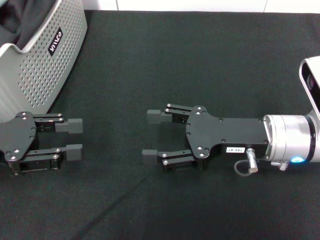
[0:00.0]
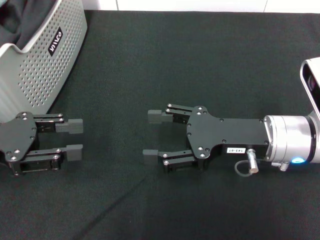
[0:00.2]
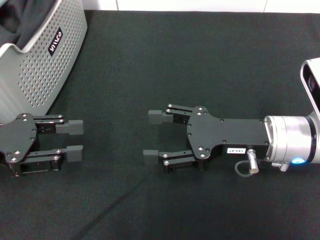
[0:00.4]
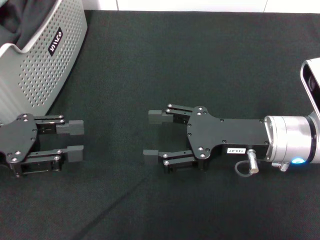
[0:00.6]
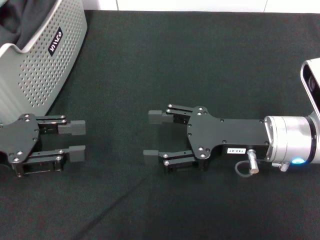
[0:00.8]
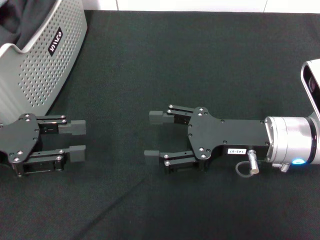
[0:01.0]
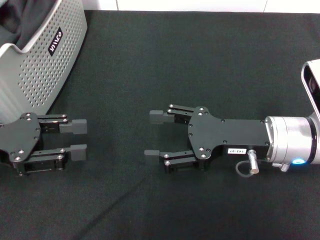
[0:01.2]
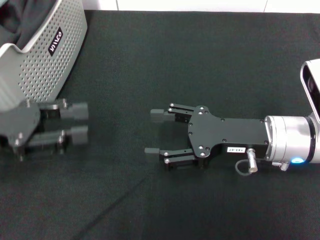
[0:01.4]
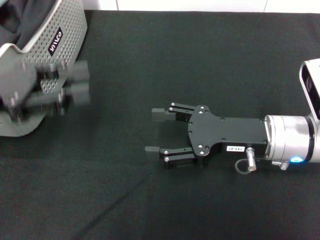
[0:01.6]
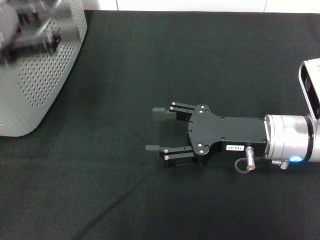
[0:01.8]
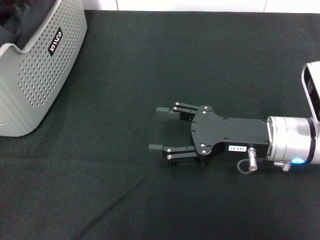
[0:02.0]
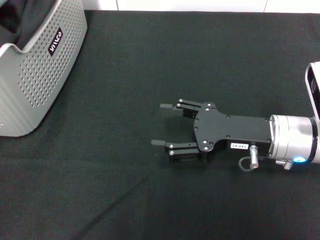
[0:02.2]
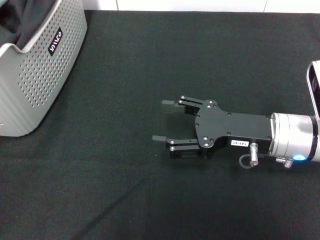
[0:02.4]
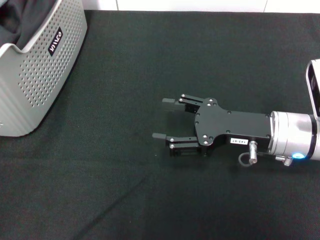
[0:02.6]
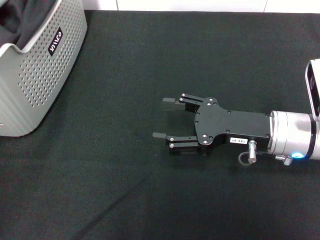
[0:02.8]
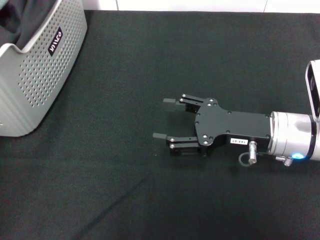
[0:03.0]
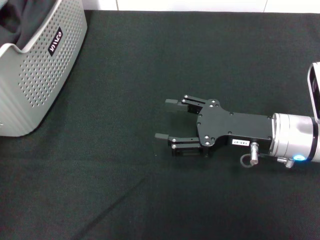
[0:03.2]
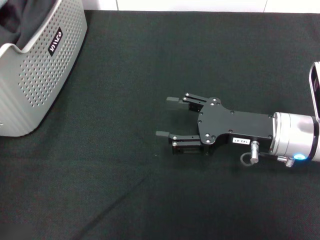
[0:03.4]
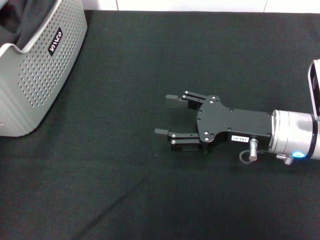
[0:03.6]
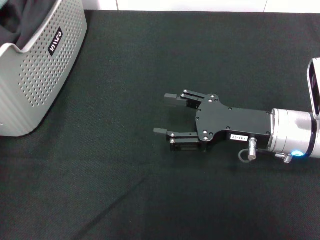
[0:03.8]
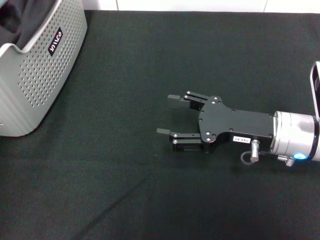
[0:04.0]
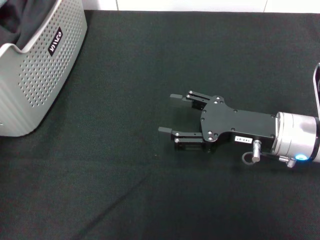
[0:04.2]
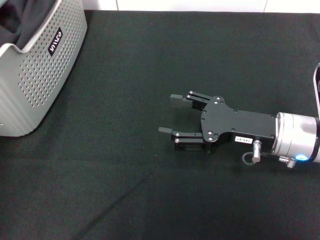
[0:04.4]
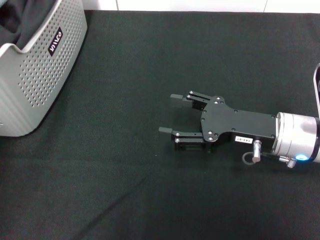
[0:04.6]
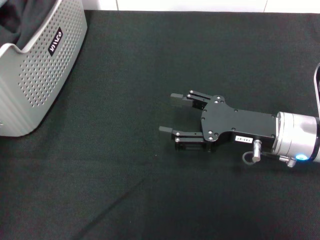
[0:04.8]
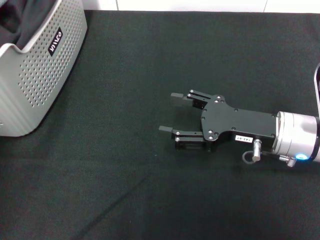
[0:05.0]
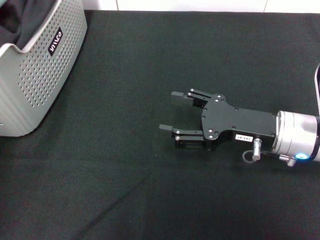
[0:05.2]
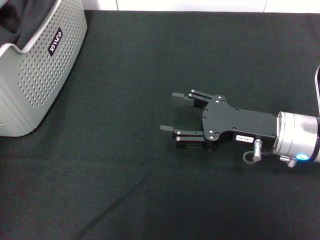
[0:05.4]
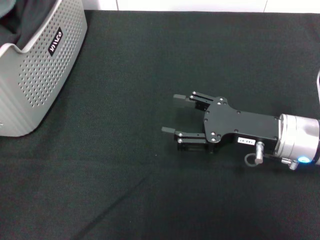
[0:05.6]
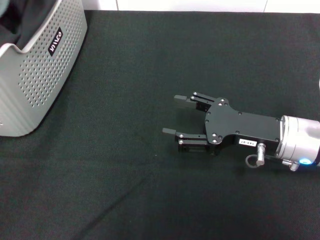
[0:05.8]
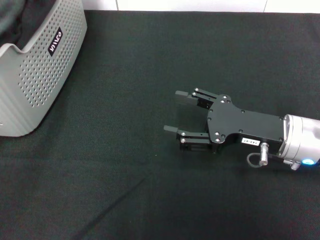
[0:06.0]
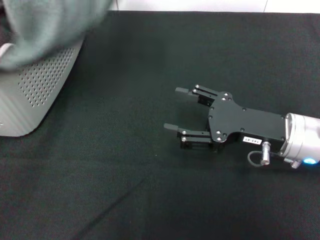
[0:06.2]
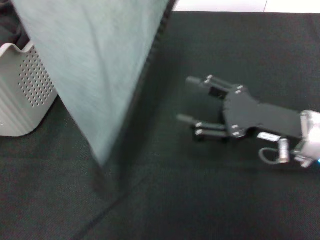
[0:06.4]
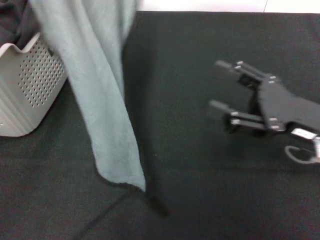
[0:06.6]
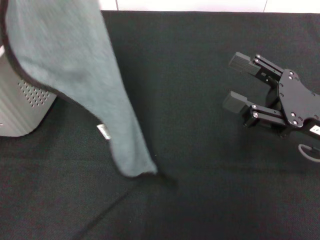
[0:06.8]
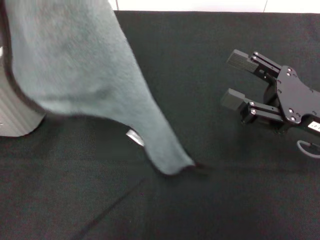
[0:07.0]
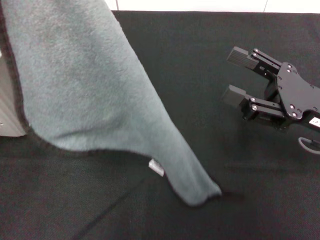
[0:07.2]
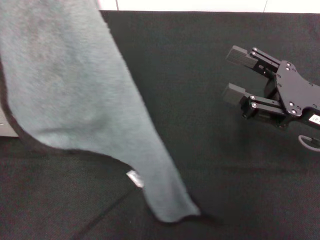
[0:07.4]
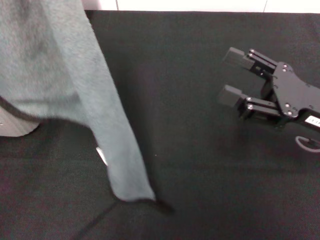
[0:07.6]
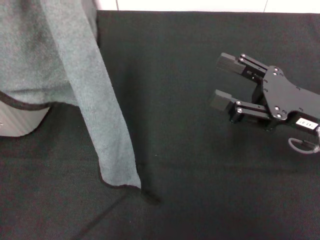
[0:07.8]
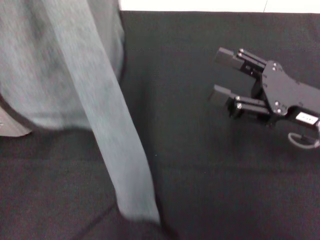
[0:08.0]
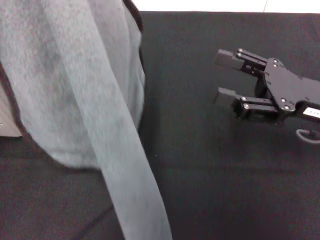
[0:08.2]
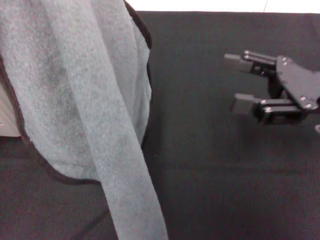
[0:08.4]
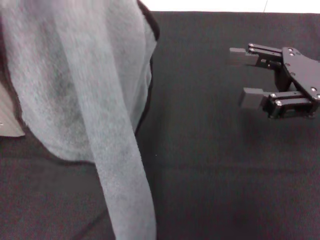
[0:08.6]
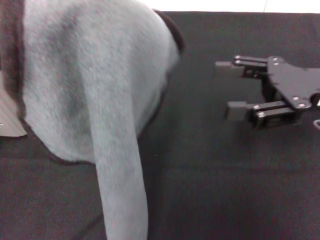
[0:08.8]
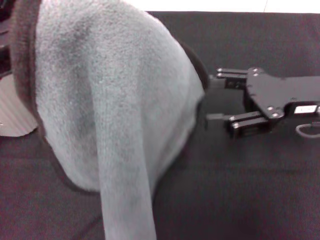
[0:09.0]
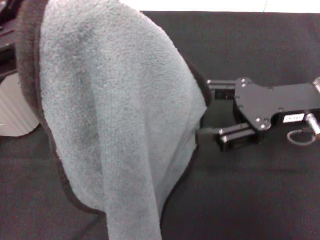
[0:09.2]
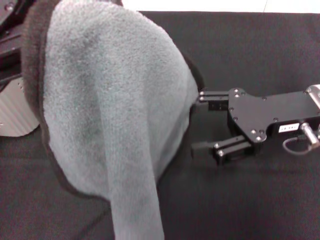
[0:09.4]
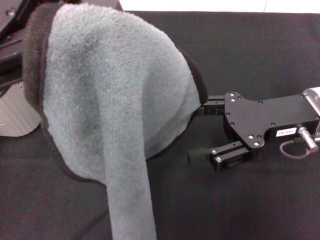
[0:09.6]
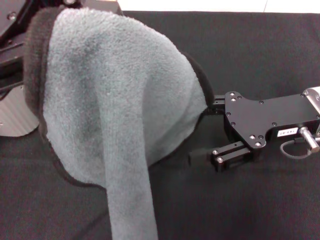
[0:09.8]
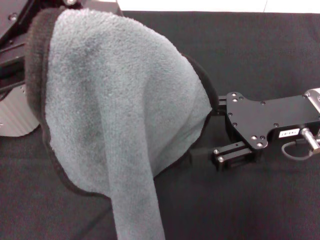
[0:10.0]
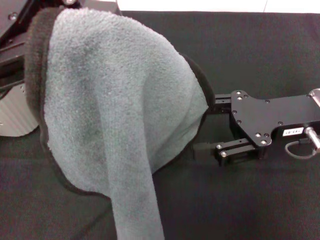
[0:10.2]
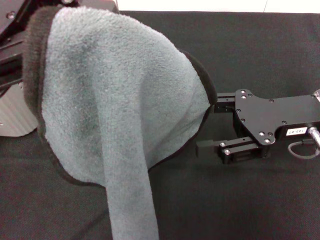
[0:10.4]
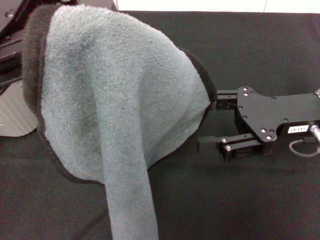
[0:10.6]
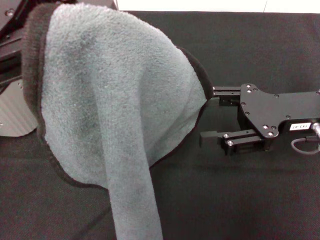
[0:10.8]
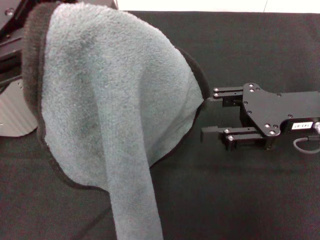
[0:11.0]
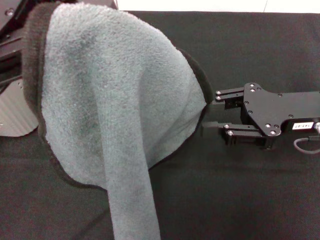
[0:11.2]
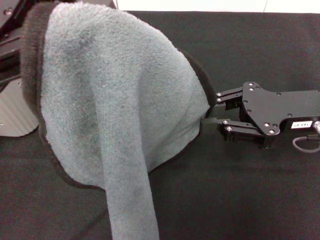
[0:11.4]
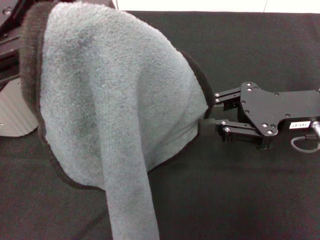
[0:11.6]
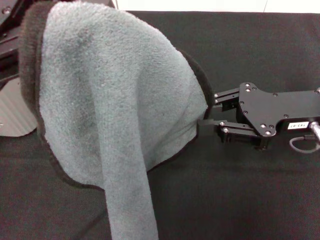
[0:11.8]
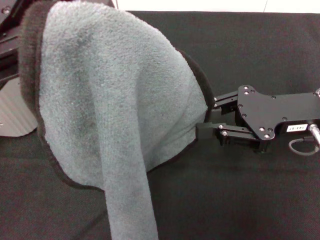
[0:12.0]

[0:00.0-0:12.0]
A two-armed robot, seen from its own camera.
Task of the whole recording: pick up the towel from the storage box and lay it flat on the black tablecloth.
Step, 0:00.0 to 0:05.2: Pick up a towel with the left gripper.
0:00.0 to 0:01.6: The left gripper shifts by about 5 cm.
0:01.6 to 0:03.0: The left gripper goes roughly 10 cm upward.
0:03.0 to 0:04.4: The grippers stay close to where they were, moving slightly.
0:04.4 to 0:06.0: The left gripper shifts roughly 10 cm upward and backward, and closes up.
0:06.0 to 0:07.6: The left gripper shifts roughly 5 cm downward; the right gripper goes approximately 5 cm to the right.
0:07.6 to 0:09.0: The left gripper is displaced to the right by some 5 cm. The right gripper changes place by about 5 cm.
0:10.4 to 0:12.0: The right gripper closes up.

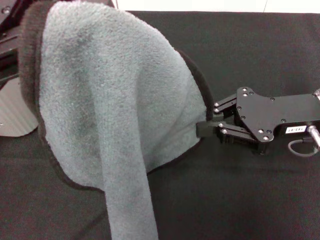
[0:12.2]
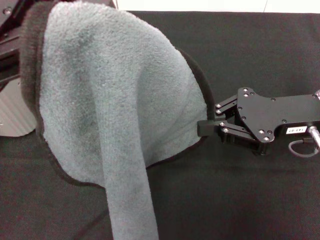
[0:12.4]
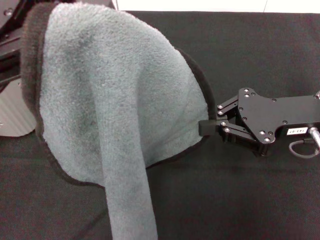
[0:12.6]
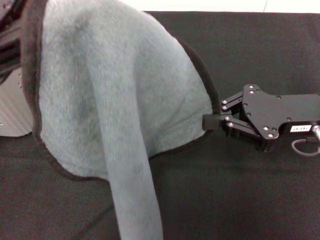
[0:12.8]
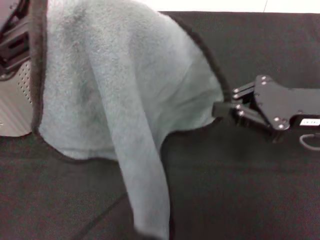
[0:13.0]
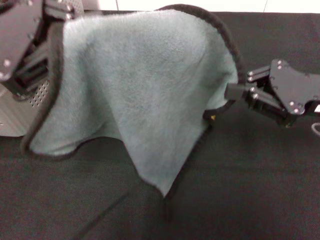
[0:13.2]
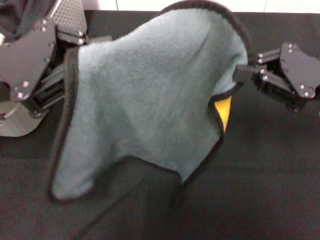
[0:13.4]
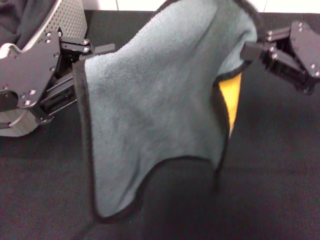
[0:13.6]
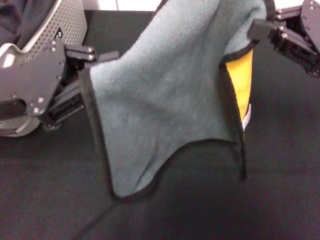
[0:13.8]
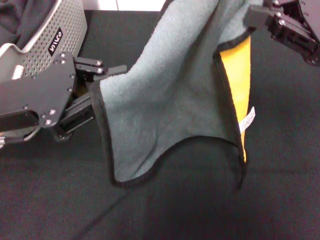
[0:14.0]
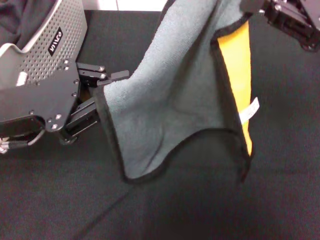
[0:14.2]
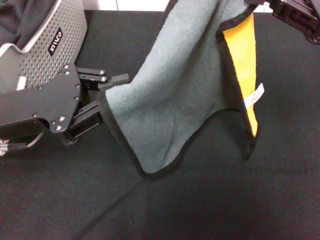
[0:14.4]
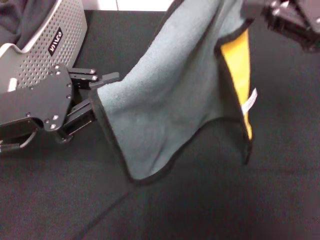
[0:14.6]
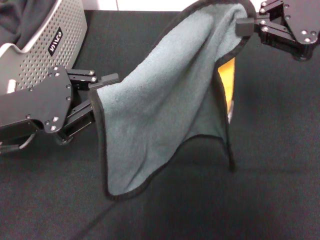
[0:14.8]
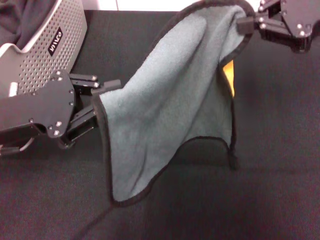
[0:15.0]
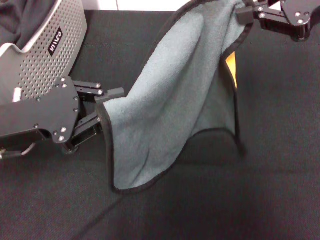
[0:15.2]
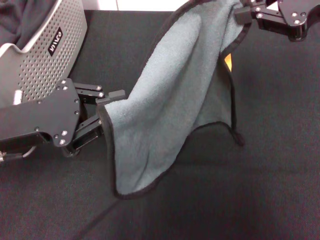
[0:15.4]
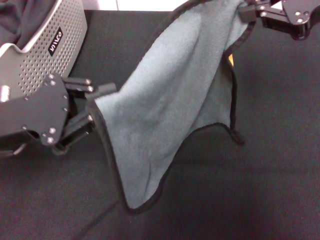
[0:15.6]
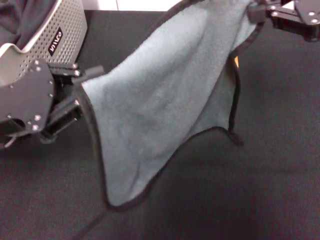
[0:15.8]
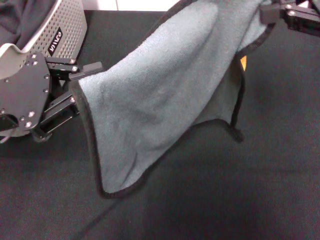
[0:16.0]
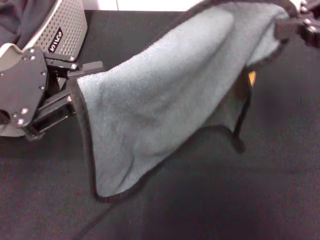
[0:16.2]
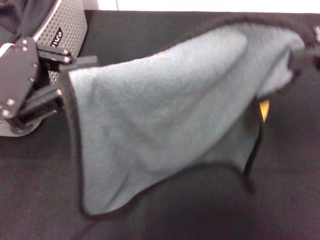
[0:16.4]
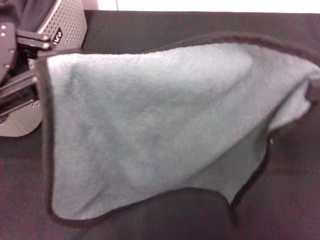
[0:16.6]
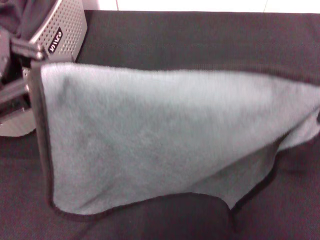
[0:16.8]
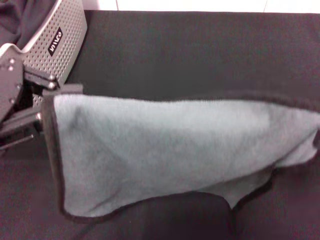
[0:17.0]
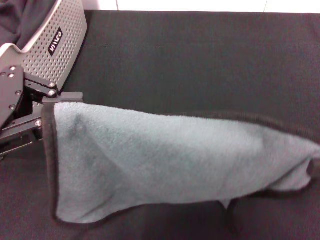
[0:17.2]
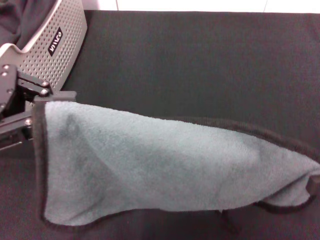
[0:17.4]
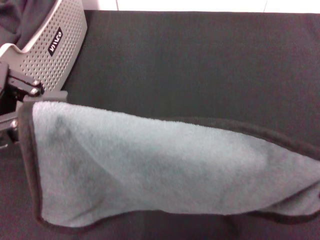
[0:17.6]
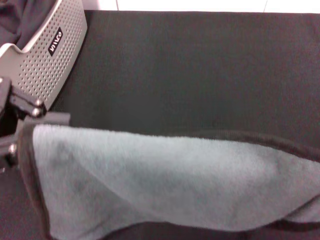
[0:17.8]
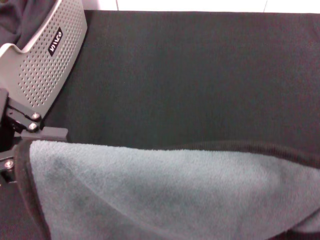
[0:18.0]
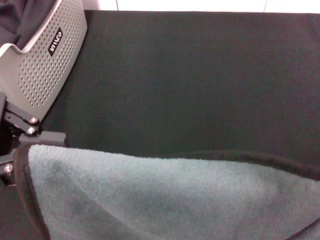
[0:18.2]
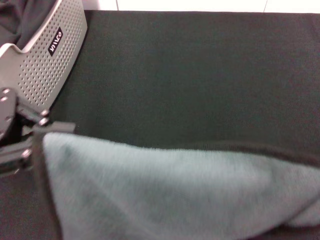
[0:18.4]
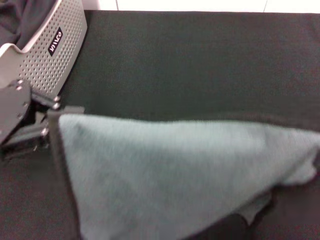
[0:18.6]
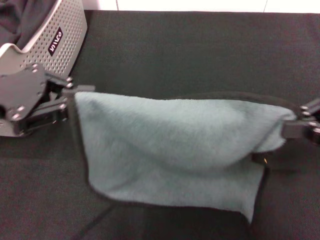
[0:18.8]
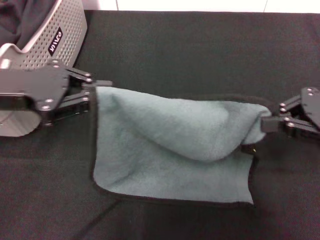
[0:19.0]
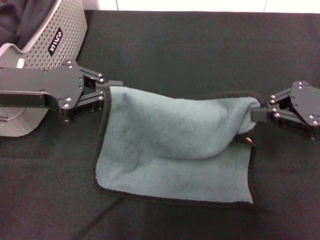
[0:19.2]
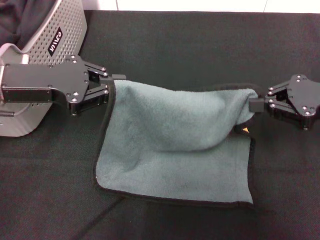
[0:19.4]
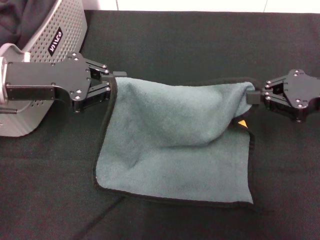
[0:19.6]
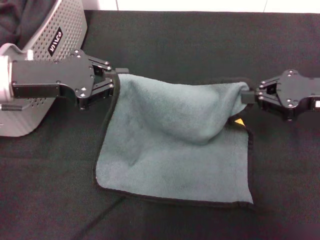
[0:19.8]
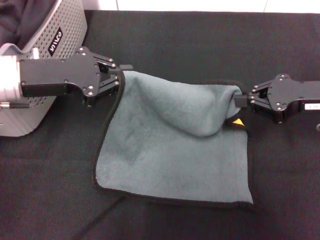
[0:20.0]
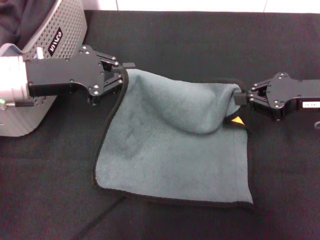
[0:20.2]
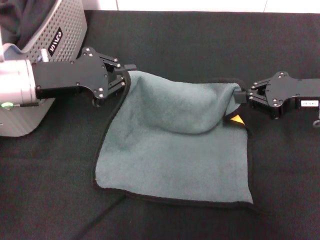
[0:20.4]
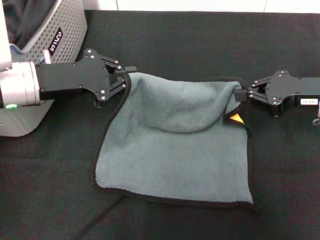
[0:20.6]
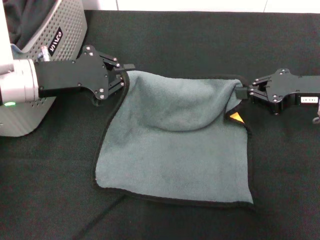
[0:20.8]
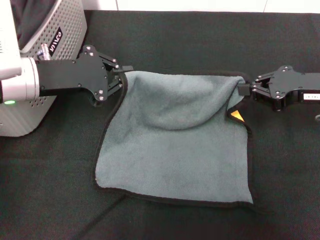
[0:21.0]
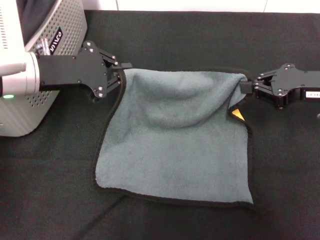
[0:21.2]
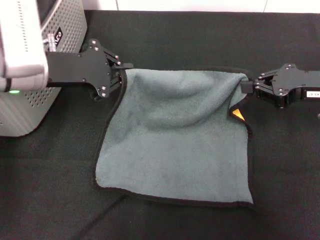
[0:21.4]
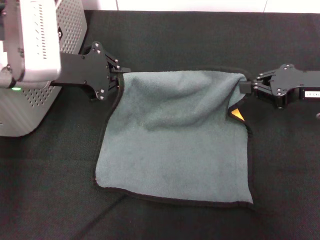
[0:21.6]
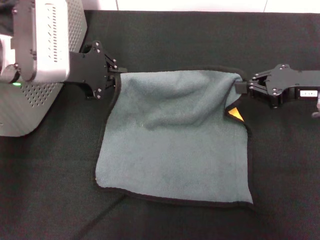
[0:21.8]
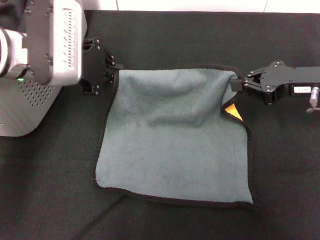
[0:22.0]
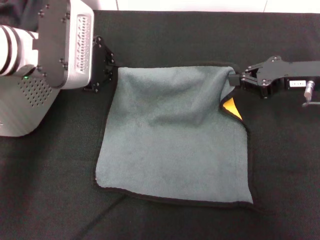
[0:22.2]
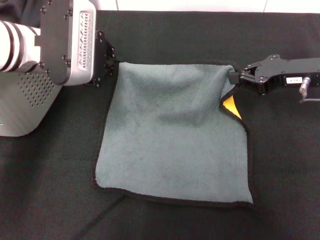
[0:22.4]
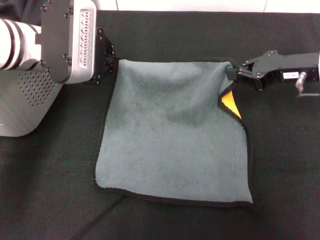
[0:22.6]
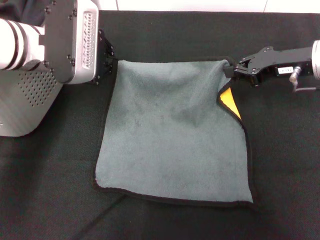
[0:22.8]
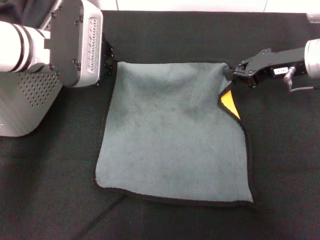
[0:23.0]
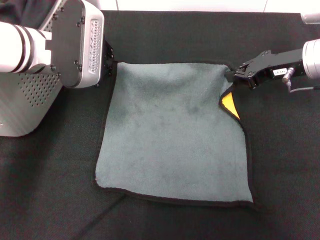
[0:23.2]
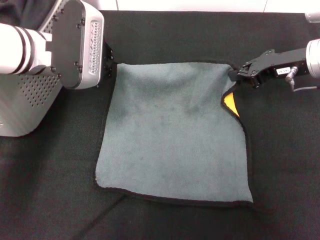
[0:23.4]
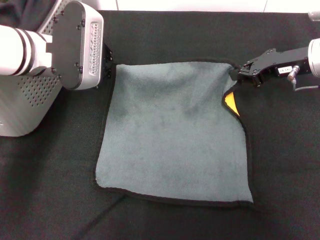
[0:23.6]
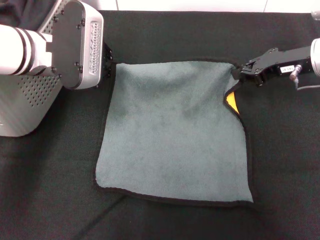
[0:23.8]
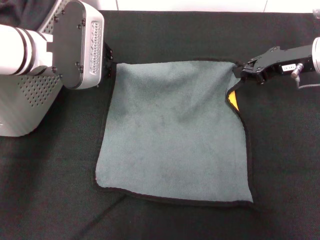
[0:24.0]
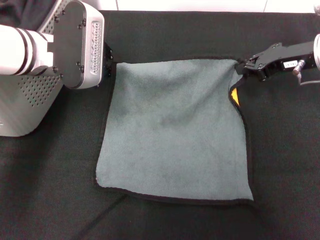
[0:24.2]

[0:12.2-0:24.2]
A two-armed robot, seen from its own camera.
Task of the whole recording: pick up the towel from the storage box and lay it flat on the black tablecloth.
0:12.2 to 0:13.8: The left gripper goes approximately 10 cm downward; the right gripper is displaced upward by some 5 cm.
0:13.8 to 0:15.2: The right gripper goes some 10 cm upward.
0:15.2 to 0:16.6: The right gripper goes about 10 cm backward and to the right. Meanwhile the left gripper shifts some 10 cm upward.
0:16.6 to 0:18.2: The right gripper shifts by roughly 5 cm.
0:18.2 to 0:19.8: The two grippers go approximately 15 cm forward and downward.
0:21.2 to 0:22.6: The left gripper ends up some 5 cm from where it was.
0:22.6 to 0:24.2: The grippers move only a little.
